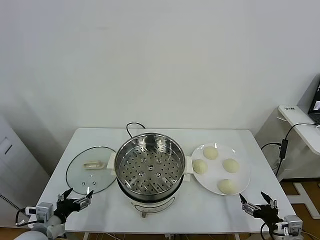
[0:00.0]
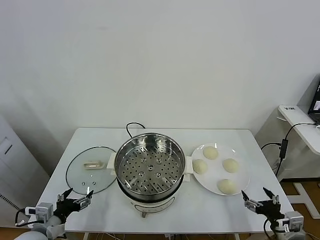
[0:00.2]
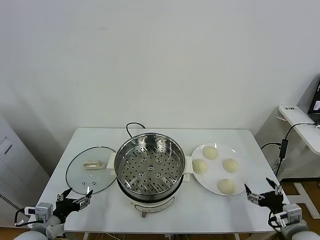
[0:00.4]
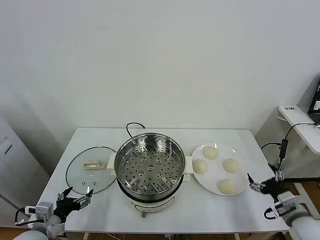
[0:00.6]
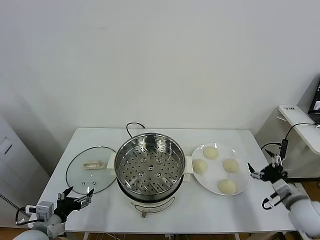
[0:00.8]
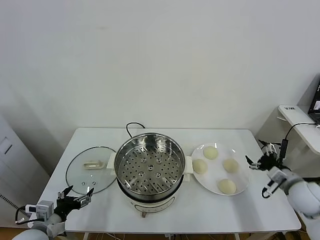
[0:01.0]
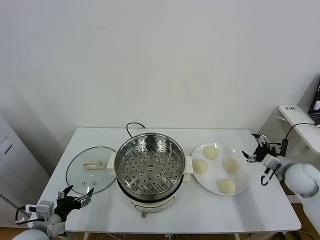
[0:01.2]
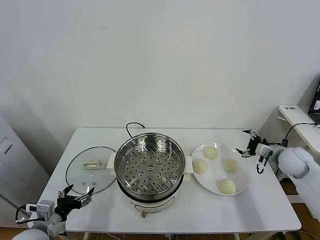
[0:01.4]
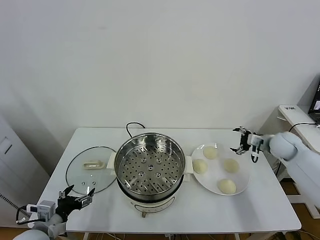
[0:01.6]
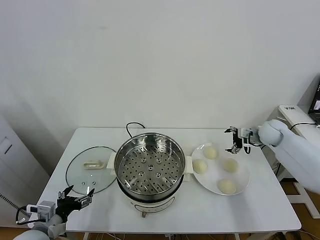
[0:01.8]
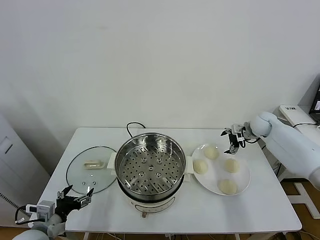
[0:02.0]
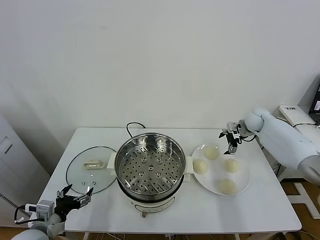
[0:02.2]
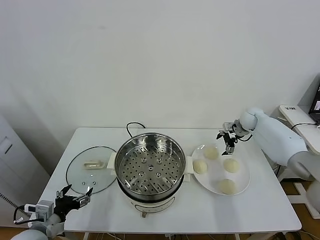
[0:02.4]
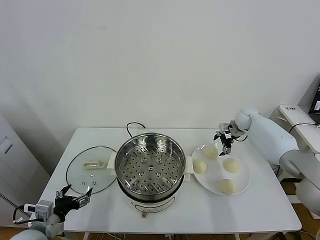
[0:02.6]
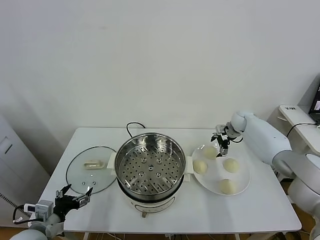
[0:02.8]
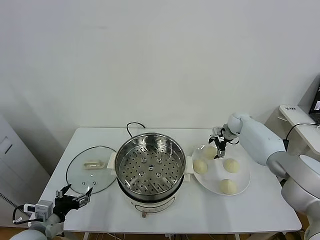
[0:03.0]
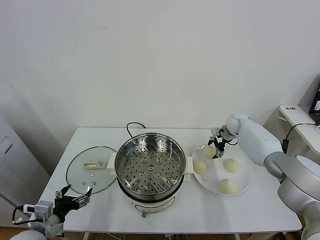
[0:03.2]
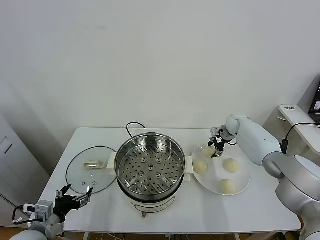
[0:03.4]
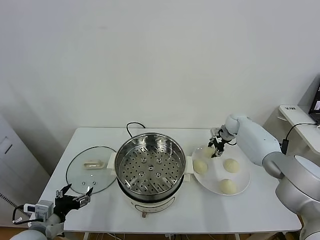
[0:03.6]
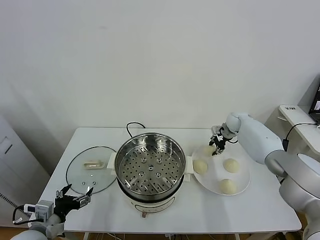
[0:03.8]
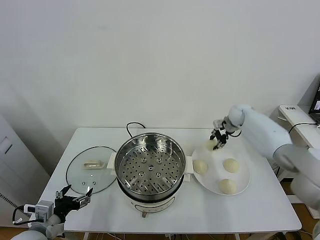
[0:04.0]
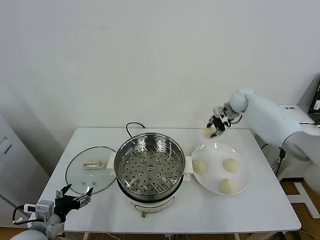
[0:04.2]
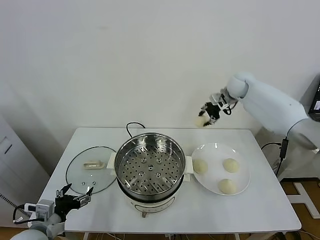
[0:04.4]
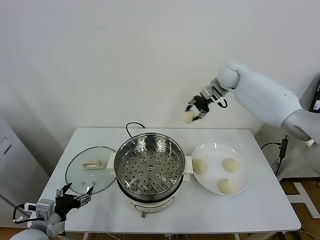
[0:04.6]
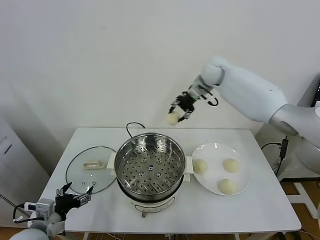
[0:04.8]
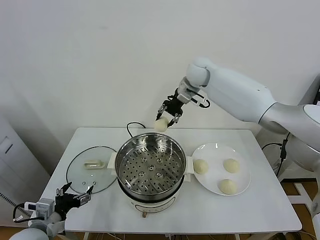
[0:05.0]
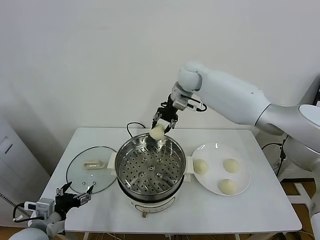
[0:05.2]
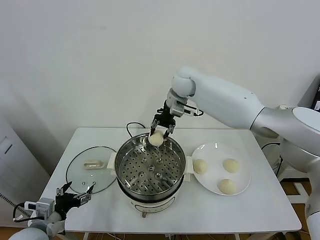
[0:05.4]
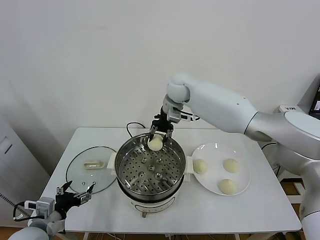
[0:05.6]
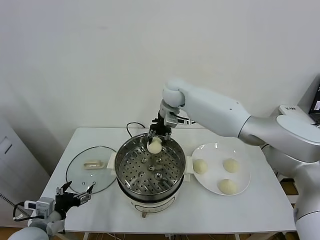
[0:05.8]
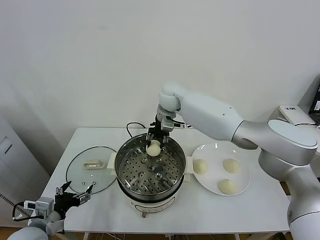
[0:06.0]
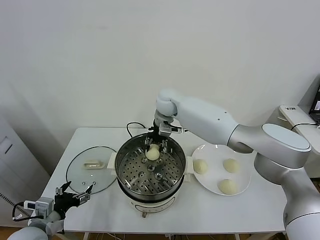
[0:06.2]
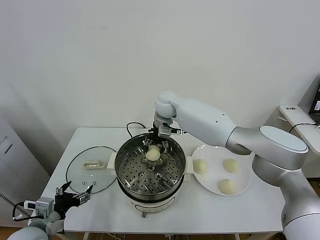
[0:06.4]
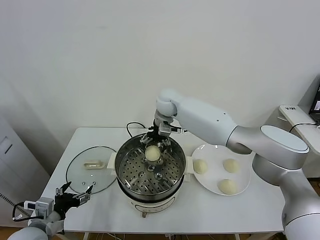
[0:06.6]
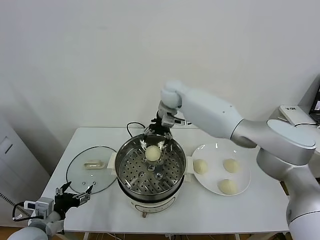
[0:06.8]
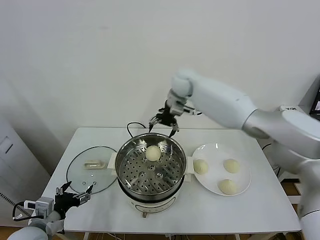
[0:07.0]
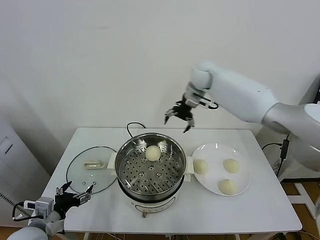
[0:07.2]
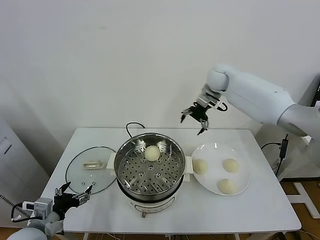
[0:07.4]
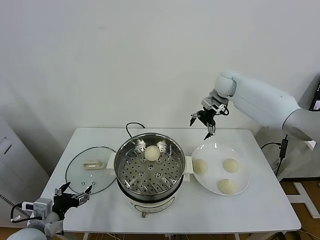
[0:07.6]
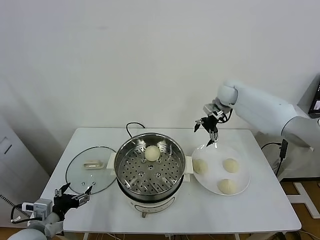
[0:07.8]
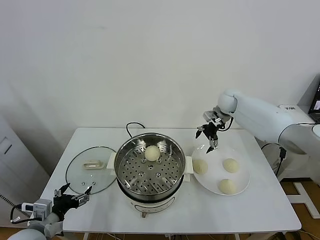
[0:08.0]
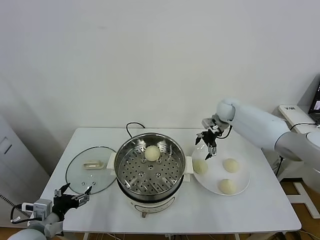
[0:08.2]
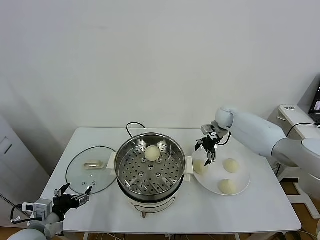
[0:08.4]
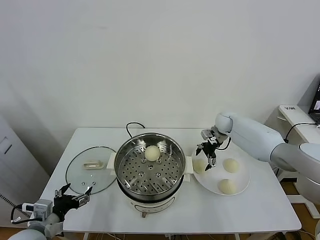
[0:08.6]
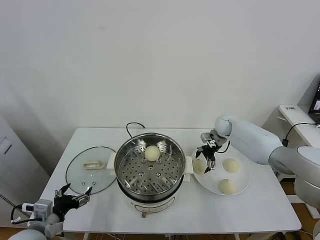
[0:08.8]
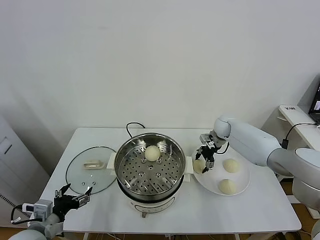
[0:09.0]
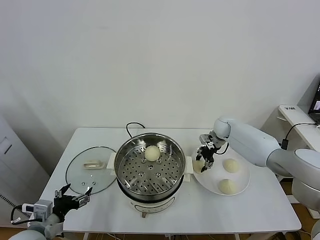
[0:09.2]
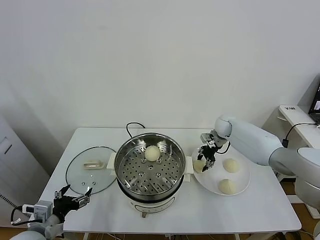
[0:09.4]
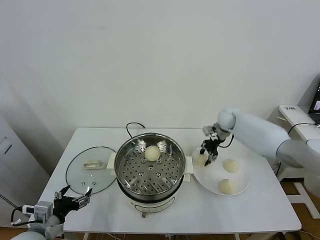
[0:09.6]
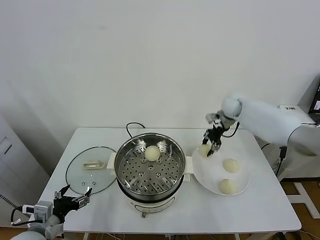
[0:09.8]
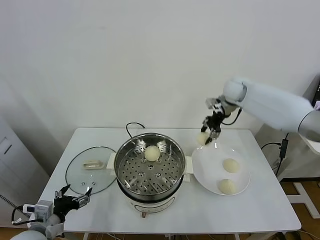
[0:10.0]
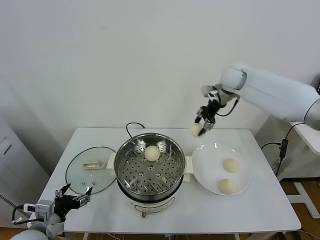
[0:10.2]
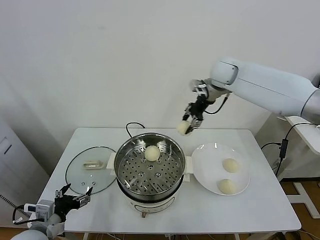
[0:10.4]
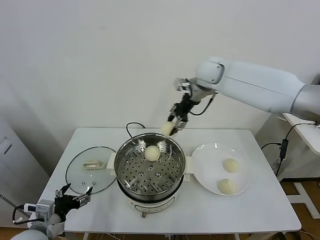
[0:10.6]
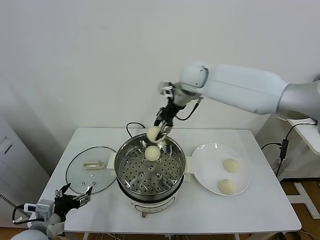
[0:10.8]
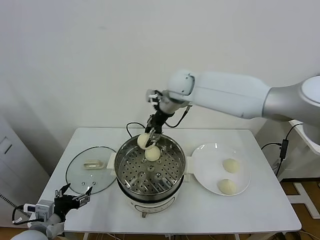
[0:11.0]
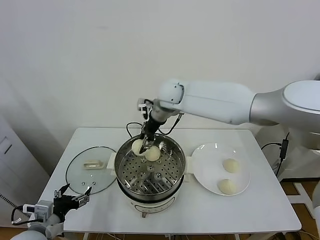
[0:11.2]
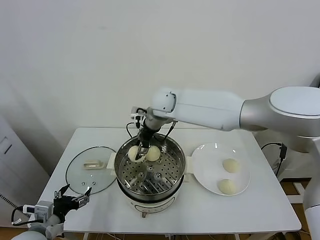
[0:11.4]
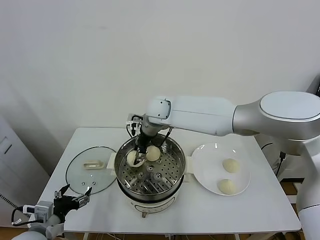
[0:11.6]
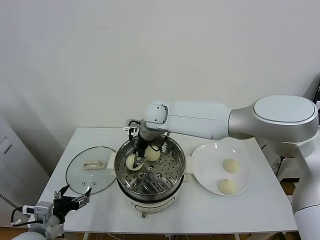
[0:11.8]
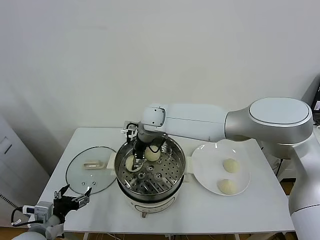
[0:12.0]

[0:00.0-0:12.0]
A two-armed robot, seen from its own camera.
Task of the whole recording: take steamed baozi put them in steamer.
Step, 0:00.0 to 0:03.2: Grasp the baozi in the plate with right gripper.
Step, 0:03.4 to 0:06.6: Place the baozi on the steamer with right gripper.
Step, 0:06.8 to 0:09.0: Grasp the baozi in the plate with right gripper.
0:01.6 to 0:03.0: The right gripper goes some 15 cm forward and to the left.
0:03.0 to 0:04.4: The right gripper shifts approximately 20 cm upward, and closes.
0:04.4 to 0:06.0: The right gripper heads to the left, covering approximately 25 cm.
0:06.0 to 0:07.6: The right gripper shifts some 25 cm to the right, and opens.
0:07.6 to 0:09.0: The right gripper is displaced downward by some 20 cm, and closes up.
0:09.0 to 0:10.4: The right gripper moves upward, roughly 25 cm.
0:10.4 to 0:12.0: The right gripper is displaced to the left and downward by roughly 25 cm.

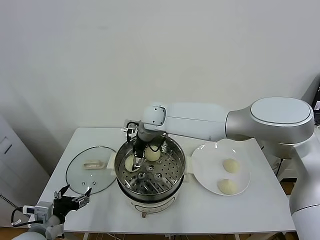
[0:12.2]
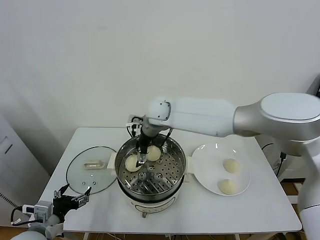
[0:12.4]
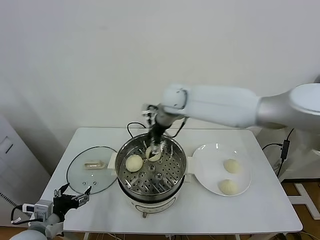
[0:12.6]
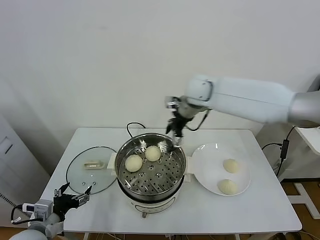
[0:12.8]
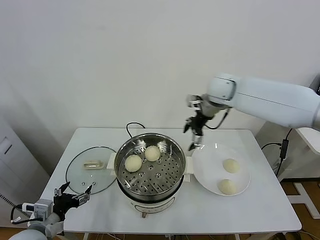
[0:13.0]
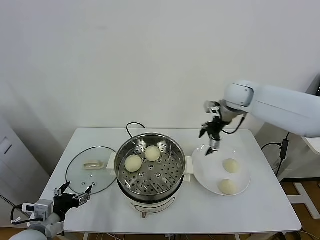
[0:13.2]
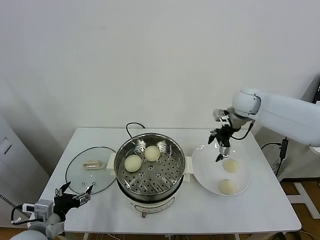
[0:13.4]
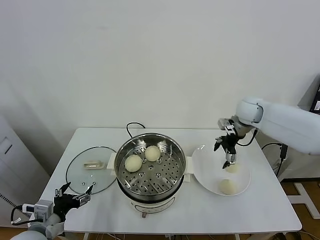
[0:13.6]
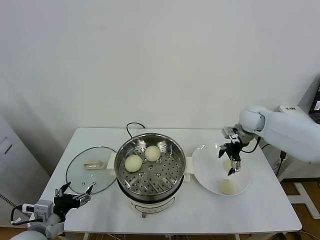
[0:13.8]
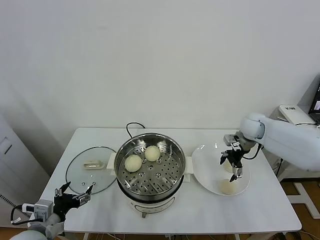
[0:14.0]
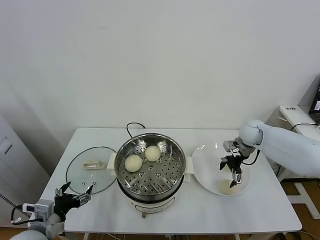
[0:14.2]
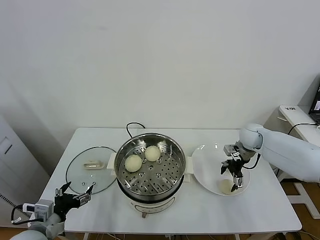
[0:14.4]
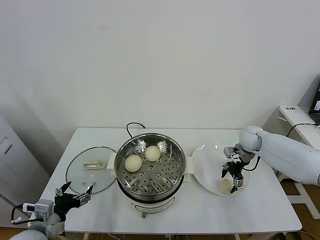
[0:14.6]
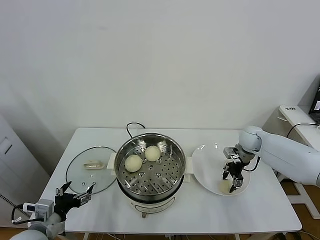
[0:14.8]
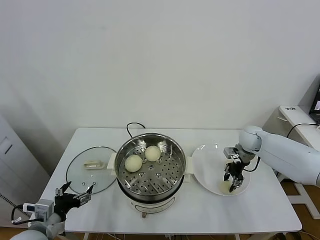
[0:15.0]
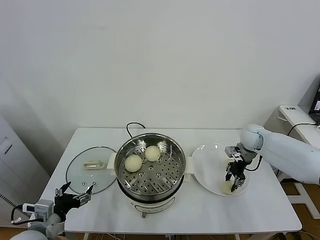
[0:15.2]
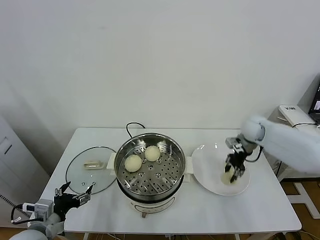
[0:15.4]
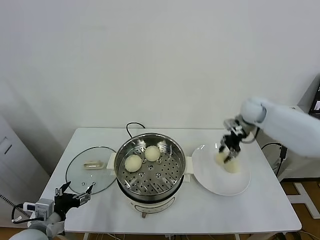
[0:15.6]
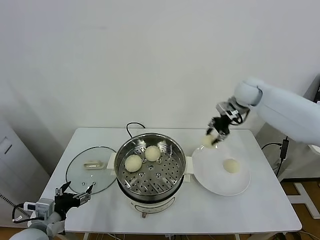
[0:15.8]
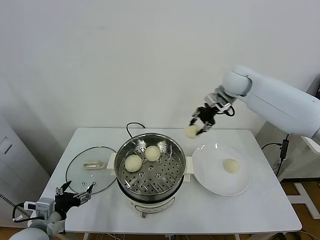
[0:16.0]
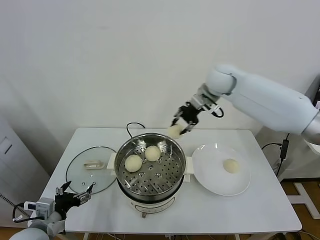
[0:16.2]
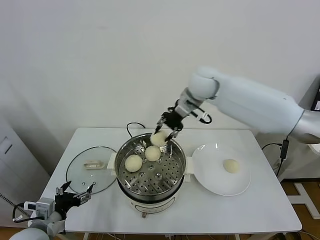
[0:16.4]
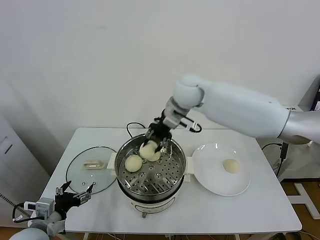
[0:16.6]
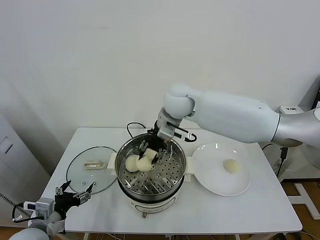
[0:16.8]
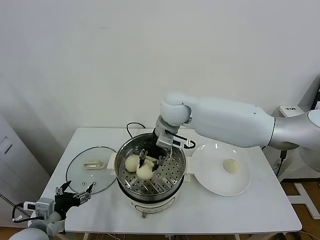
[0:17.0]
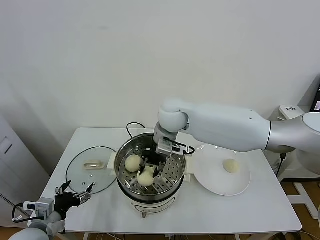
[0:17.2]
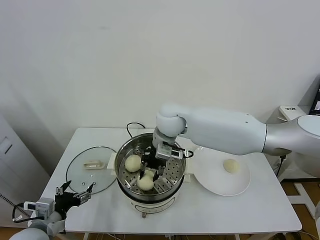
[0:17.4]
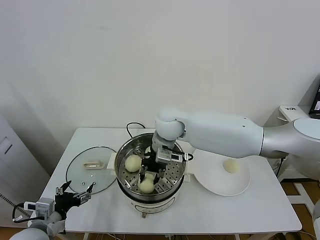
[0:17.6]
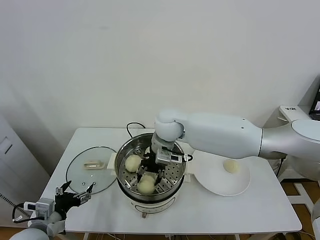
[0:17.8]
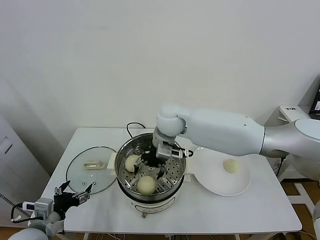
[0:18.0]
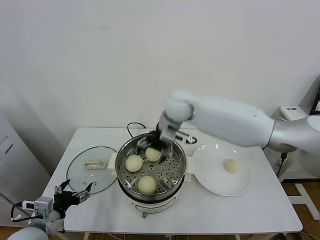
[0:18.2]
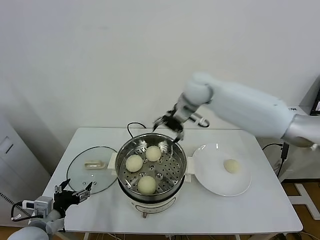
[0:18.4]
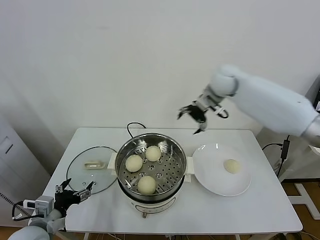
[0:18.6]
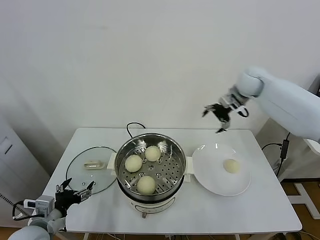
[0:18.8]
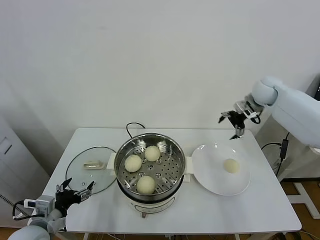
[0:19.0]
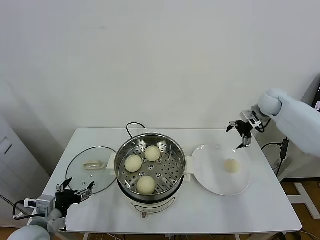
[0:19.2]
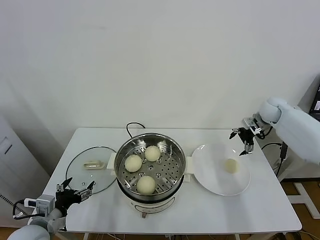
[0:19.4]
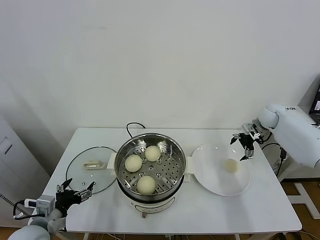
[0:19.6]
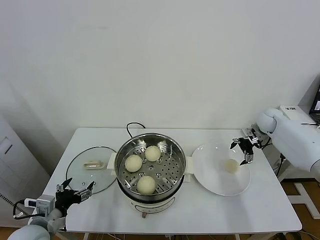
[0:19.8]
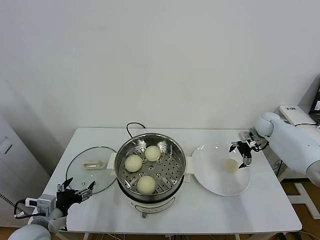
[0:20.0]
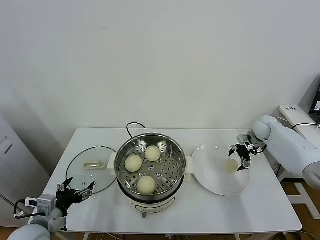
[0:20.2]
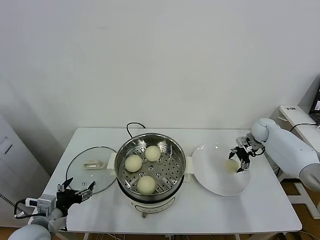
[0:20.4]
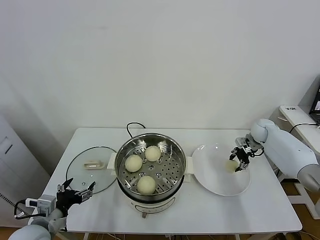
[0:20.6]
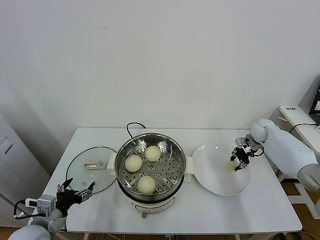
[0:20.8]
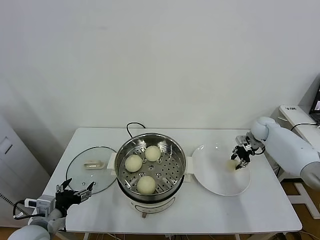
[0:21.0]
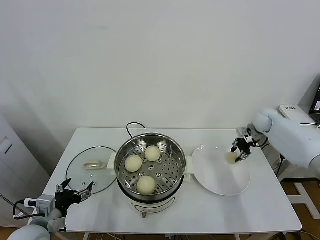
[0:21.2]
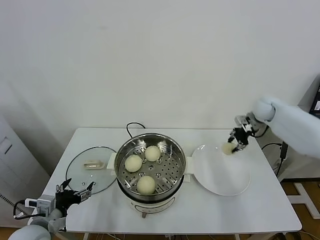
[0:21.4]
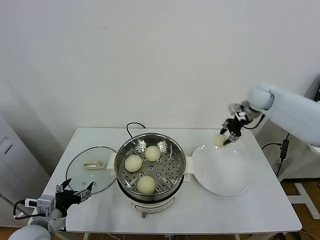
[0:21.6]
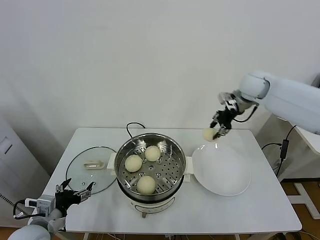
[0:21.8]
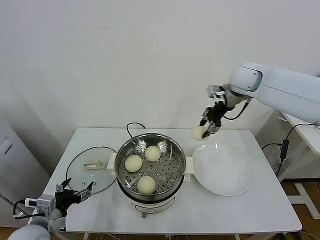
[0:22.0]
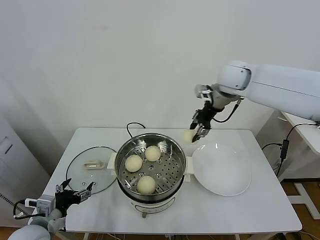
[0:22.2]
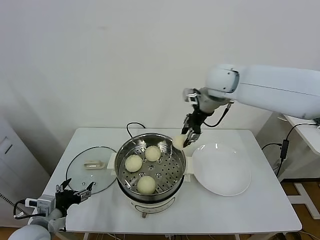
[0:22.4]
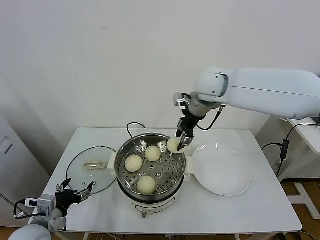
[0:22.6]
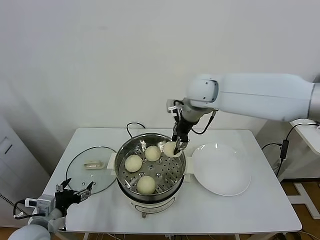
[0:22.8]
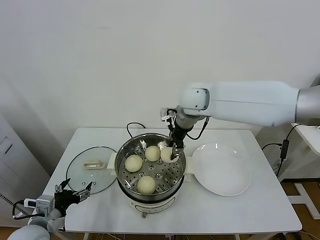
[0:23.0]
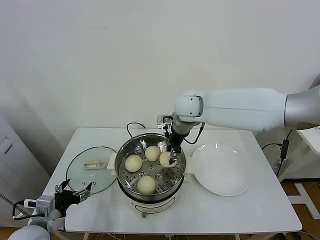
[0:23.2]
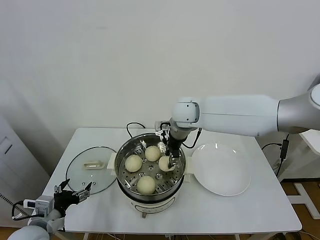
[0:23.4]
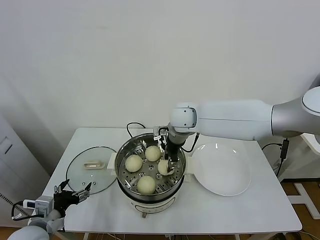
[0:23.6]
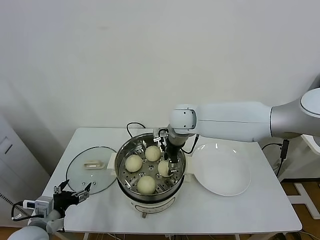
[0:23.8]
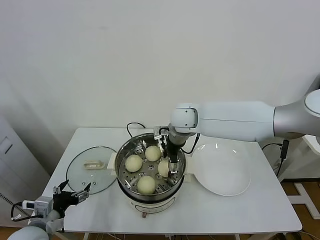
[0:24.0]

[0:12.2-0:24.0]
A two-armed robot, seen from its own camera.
Task of the whole recording: take steamed baozi put them in steamer.
Step, 0:12.4 to 0:14.8: Grasp the baozi in the plate with right gripper.
Step, 0:15.0 to 0:18.0: Place the baozi on the steamer with right gripper.
Step, 0:18.2 to 0:20.6: Grasp the baozi in the plate with right gripper.
0:12.2 to 0:13.6: The right gripper shifts about 35 cm to the right.
0:13.6 to 0:15.2: The right gripper moves downward, approximately 10 cm, and closes.
0:15.2 to 0:16.6: The right gripper moves to the left and upward, about 35 cm.
0:16.6 to 0:18.2: The right gripper reaches roughly 10 cm downward, then returns, and opens.
0:18.2 to 0:19.6: The right gripper shifts roughly 35 cm to the right.
0:19.6 to 0:21.0: The right gripper travels downward by about 5 cm, and closes its fingers.
0:21.0 to 0:22.6: The right gripper is displaced to the left and upward by about 35 cm.
0:22.6 to 0:24.0: The right gripper travels downward and to the left by about 10 cm, and opens its fingers.
